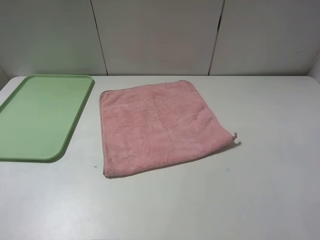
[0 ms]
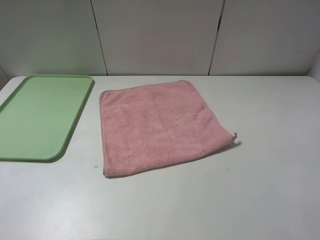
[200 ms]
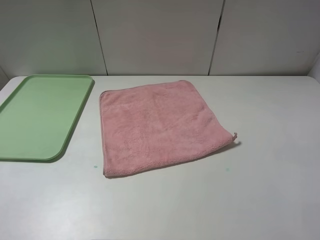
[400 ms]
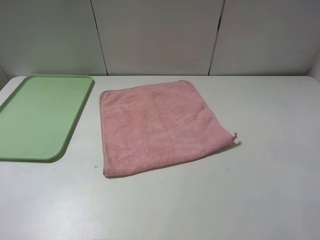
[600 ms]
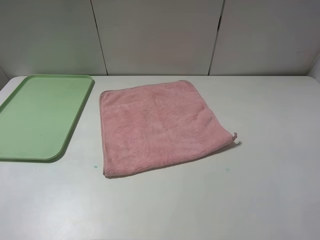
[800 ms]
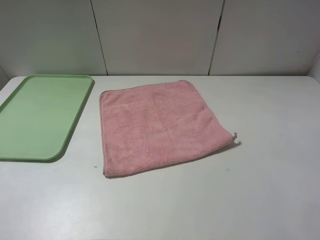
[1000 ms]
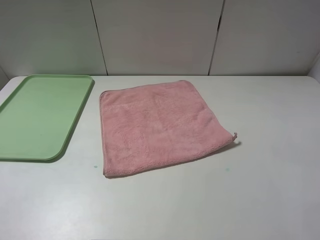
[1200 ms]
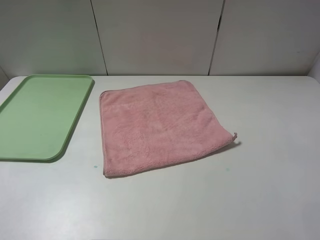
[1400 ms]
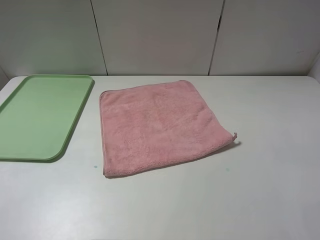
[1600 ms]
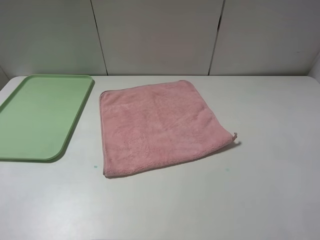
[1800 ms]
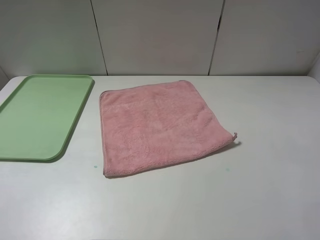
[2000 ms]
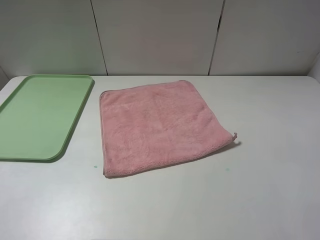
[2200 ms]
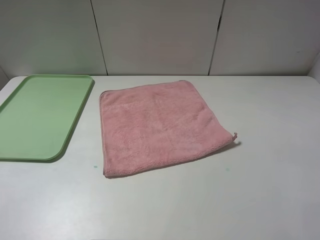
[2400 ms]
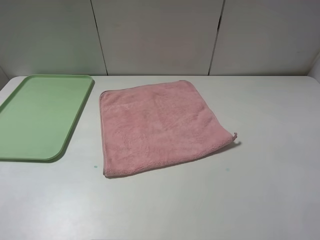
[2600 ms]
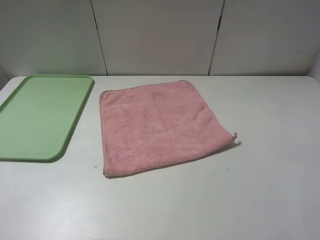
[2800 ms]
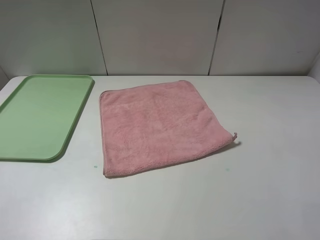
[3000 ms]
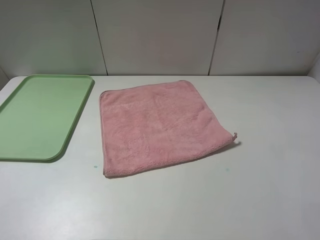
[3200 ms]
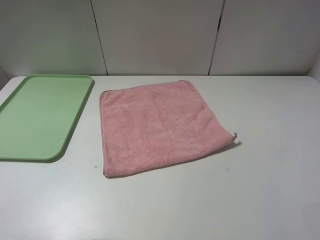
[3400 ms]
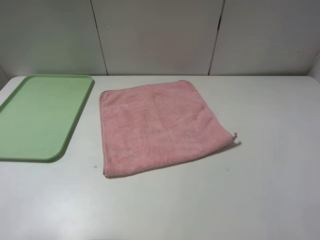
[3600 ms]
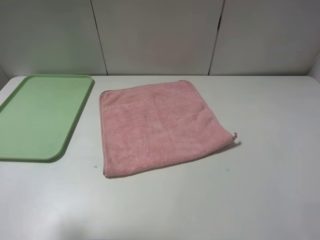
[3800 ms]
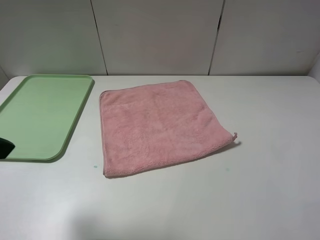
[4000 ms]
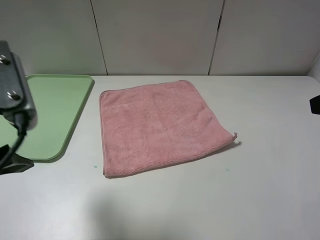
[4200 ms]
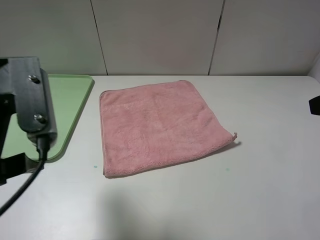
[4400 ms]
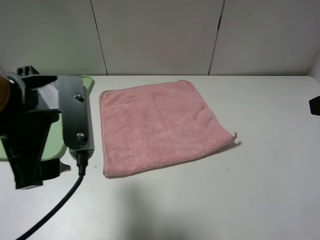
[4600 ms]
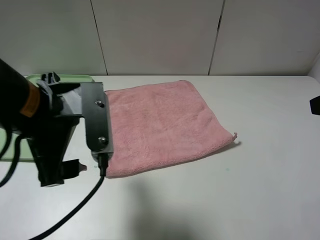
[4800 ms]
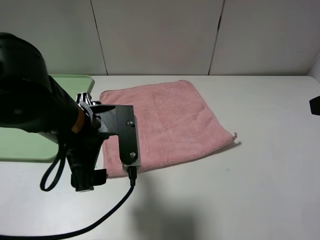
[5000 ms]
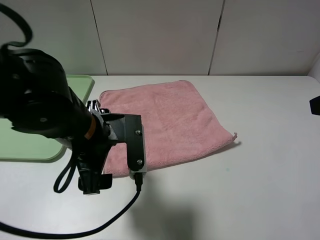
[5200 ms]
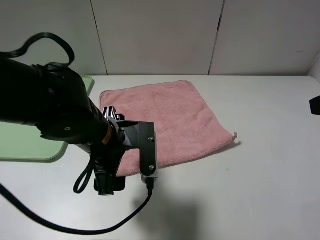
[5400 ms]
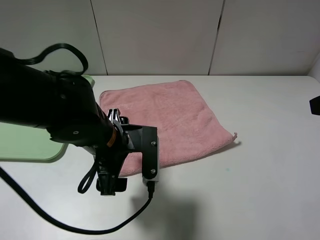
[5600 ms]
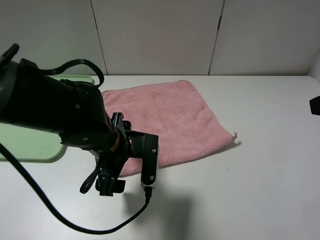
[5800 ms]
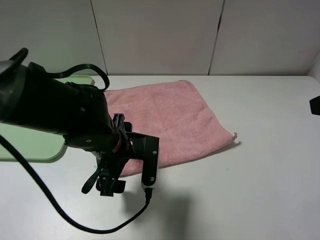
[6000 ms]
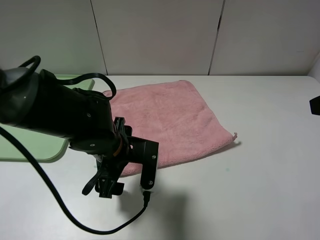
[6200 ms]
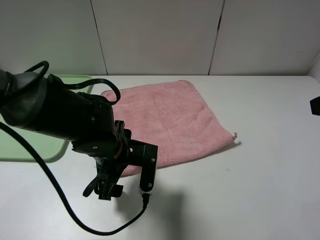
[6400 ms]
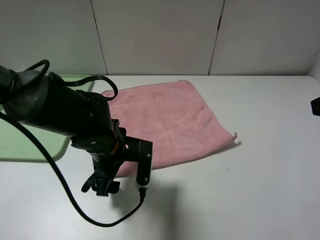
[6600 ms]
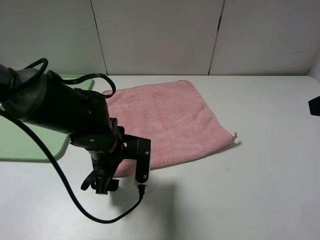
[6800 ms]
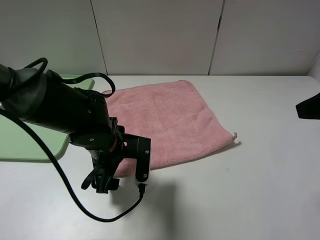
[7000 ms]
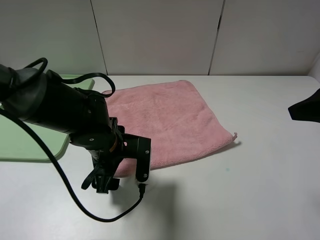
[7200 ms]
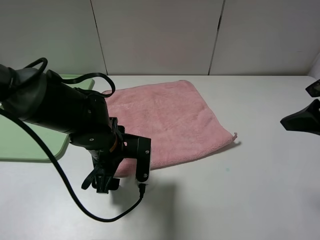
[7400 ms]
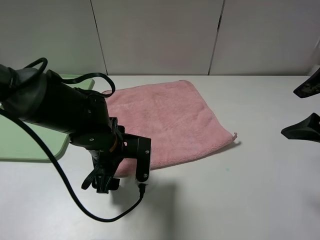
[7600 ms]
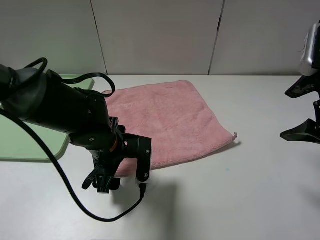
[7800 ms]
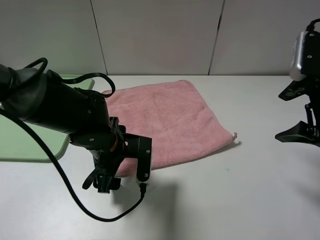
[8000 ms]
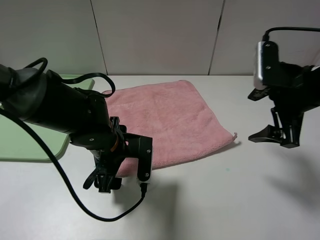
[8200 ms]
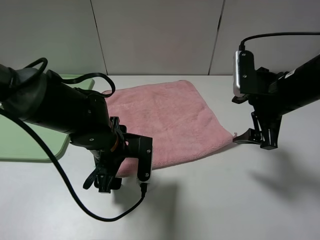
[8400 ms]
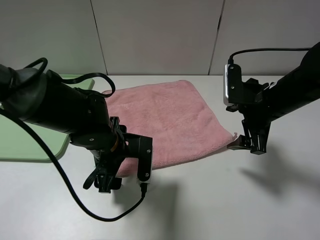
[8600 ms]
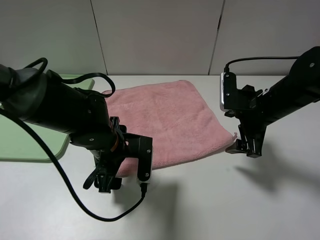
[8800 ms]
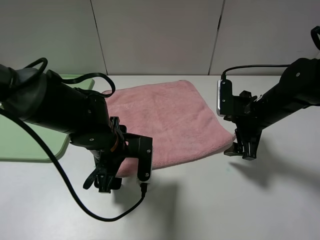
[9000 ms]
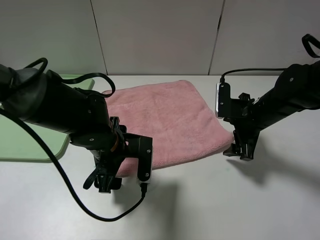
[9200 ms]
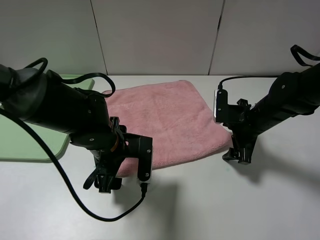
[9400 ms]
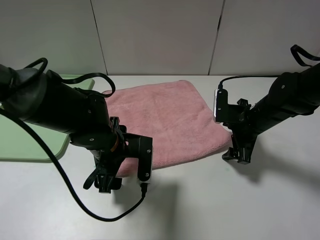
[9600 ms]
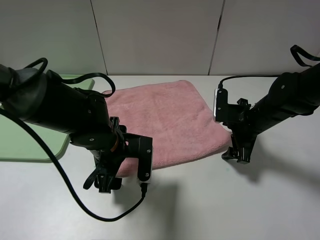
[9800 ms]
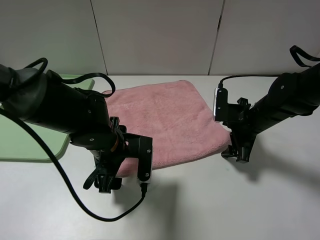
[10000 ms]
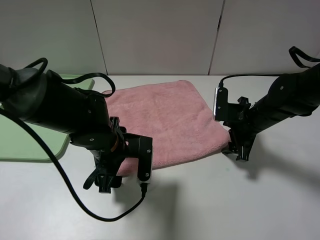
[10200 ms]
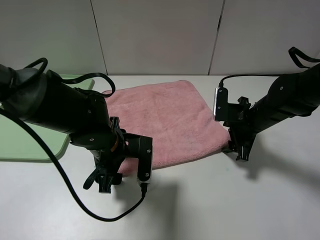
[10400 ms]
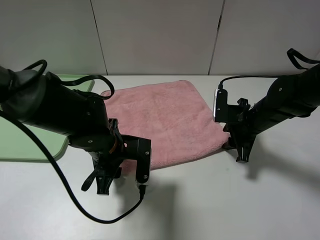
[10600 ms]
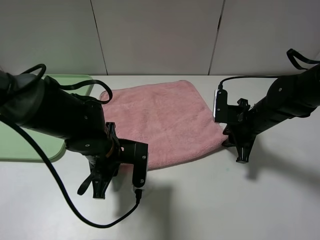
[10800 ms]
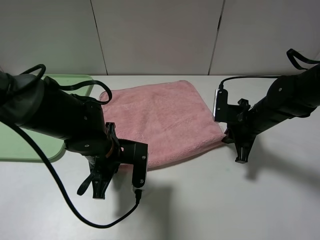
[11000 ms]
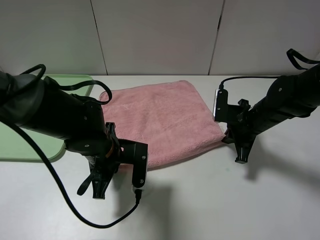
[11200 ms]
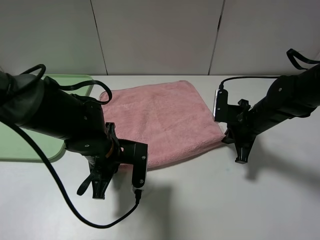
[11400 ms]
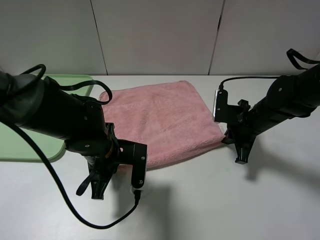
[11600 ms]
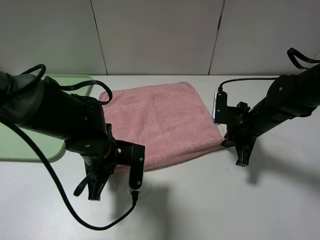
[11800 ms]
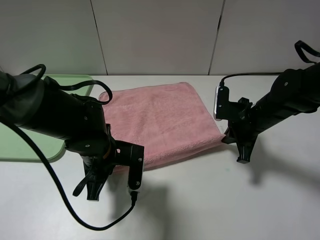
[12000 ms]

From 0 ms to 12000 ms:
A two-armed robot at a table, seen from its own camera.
From 0 ms to 1600 ms: Both grippers stay about where they are.
From 3000 ms to 4400 ms: The left gripper is displaced forward and to the right by some 20 cm. Meanwhile the right gripper is displaced forward by approximately 10 cm.
From 4400 ms to 6000 ms: The left gripper is displaced downward and to the right by roughly 20 cm.
From 6000 ms to 7600 ms: The right gripper shifts roughly 10 cm forward and downward.
From 7600 ms to 9000 ms: The right gripper goes some 15 cm downward, forward and to the left.
From 9000 ms to 10400 ms: The grippers stay close to where they were, moving slightly.
From 10400 ms to 12000 ms: The left gripper closes up. Meanwhile the right gripper closes its fingers.

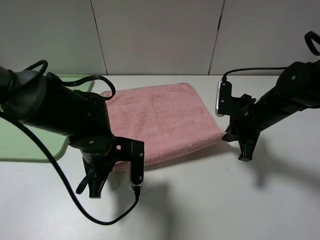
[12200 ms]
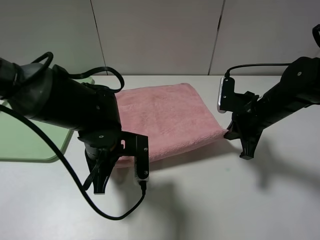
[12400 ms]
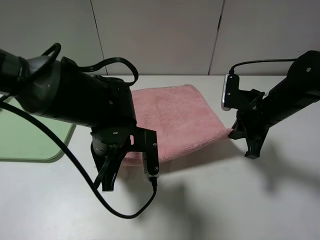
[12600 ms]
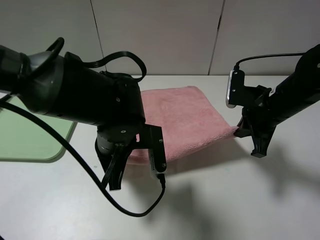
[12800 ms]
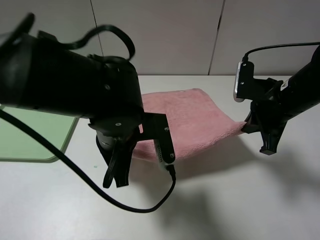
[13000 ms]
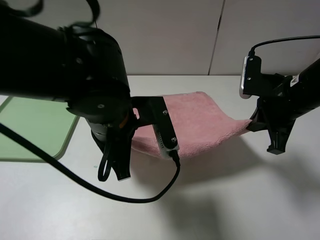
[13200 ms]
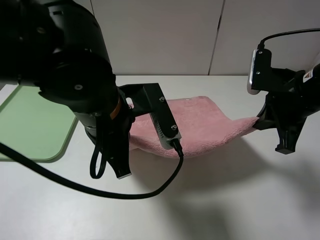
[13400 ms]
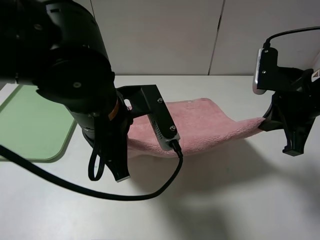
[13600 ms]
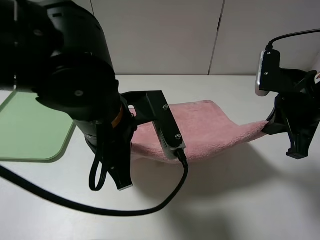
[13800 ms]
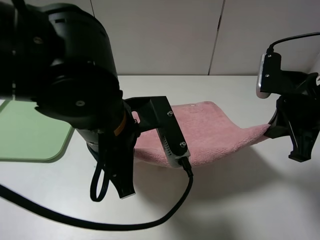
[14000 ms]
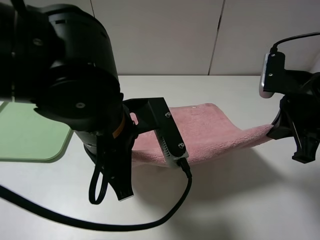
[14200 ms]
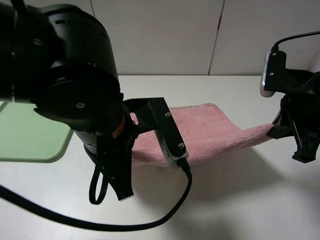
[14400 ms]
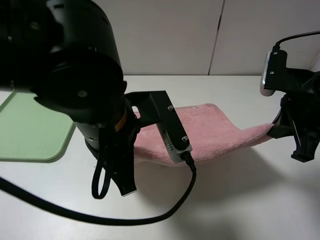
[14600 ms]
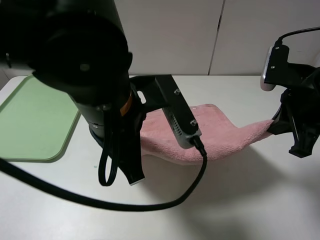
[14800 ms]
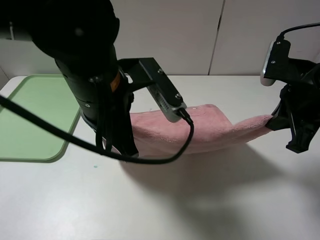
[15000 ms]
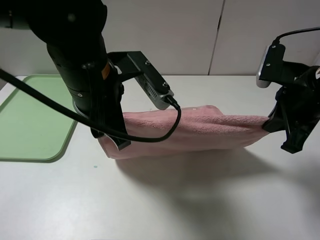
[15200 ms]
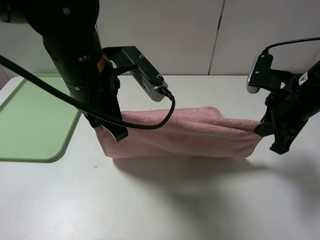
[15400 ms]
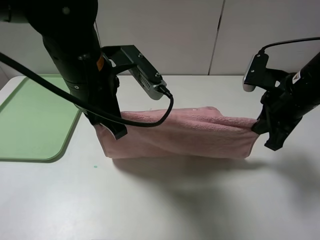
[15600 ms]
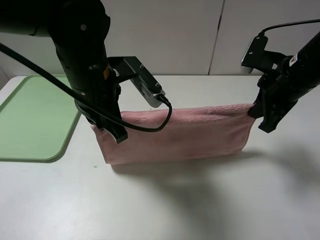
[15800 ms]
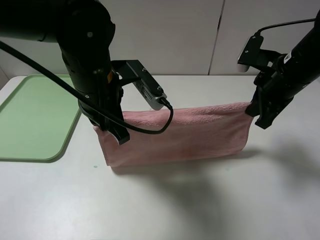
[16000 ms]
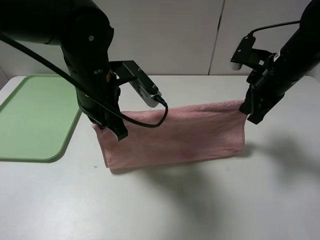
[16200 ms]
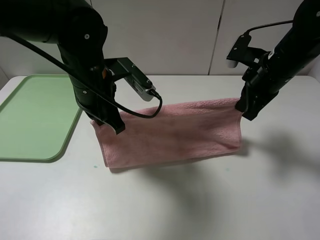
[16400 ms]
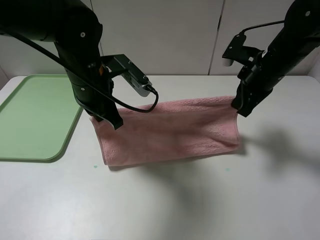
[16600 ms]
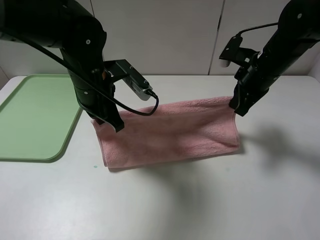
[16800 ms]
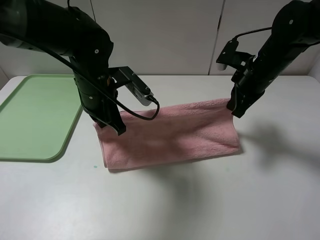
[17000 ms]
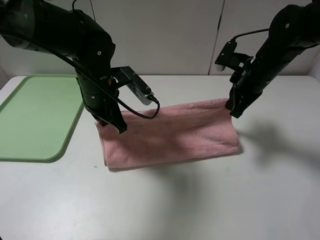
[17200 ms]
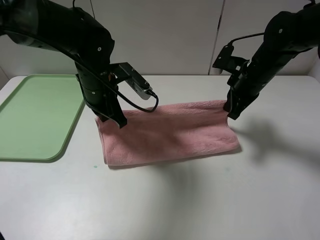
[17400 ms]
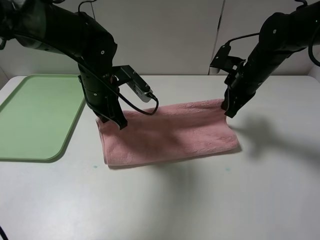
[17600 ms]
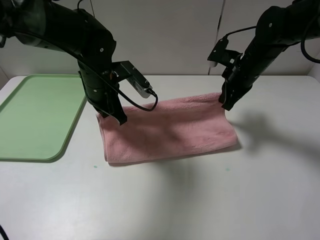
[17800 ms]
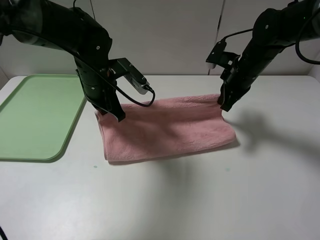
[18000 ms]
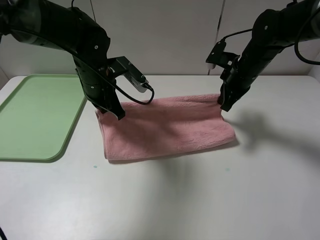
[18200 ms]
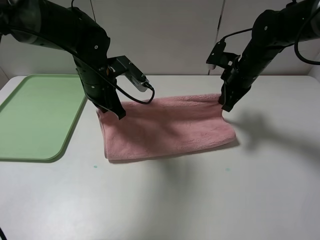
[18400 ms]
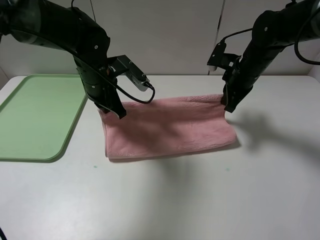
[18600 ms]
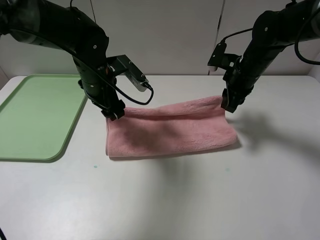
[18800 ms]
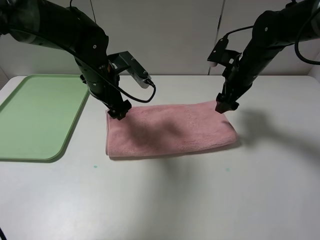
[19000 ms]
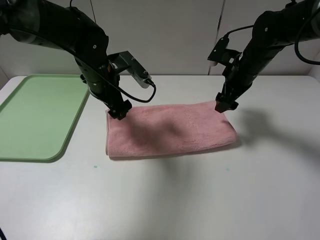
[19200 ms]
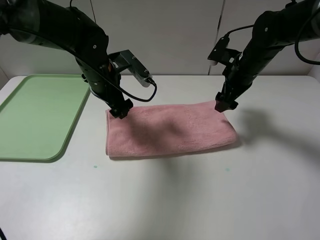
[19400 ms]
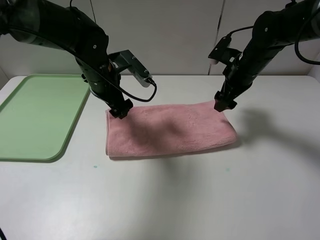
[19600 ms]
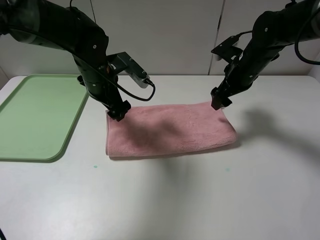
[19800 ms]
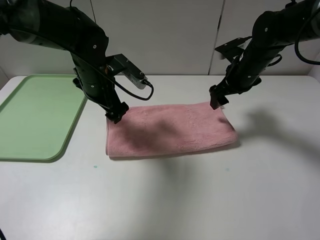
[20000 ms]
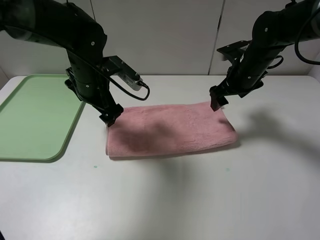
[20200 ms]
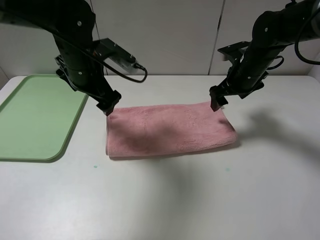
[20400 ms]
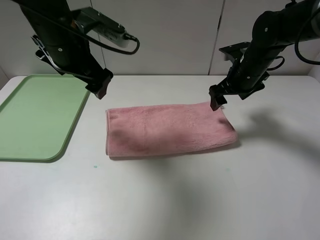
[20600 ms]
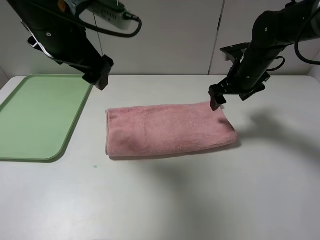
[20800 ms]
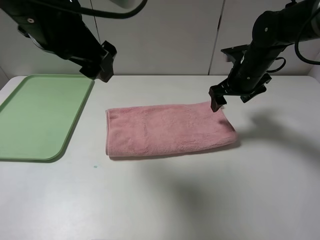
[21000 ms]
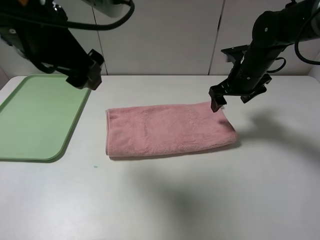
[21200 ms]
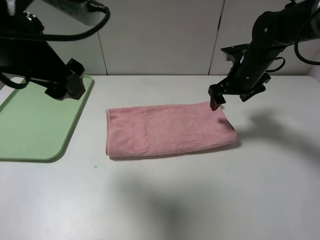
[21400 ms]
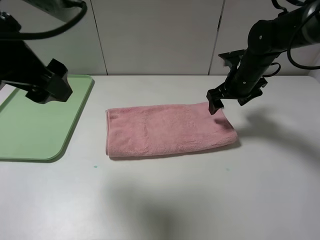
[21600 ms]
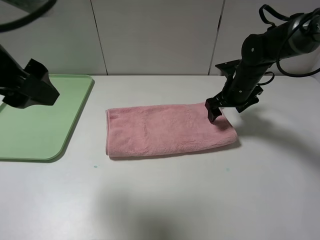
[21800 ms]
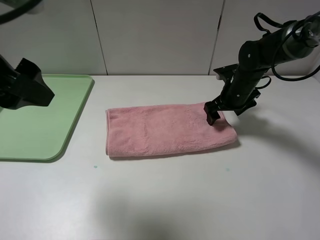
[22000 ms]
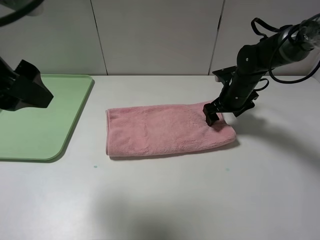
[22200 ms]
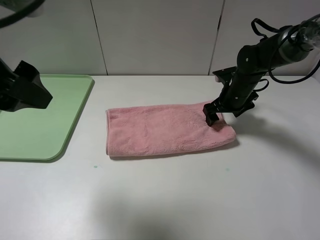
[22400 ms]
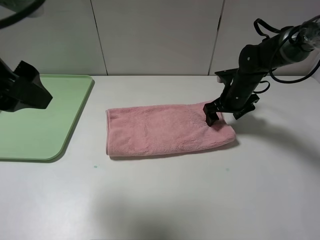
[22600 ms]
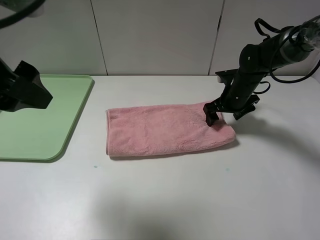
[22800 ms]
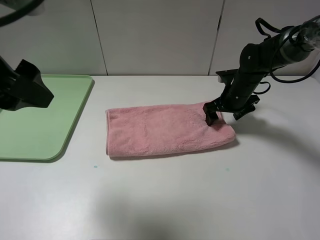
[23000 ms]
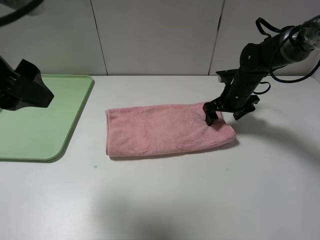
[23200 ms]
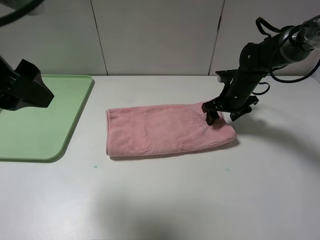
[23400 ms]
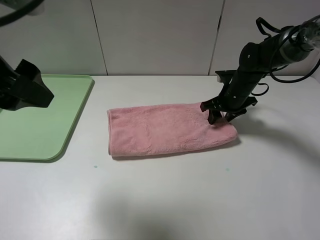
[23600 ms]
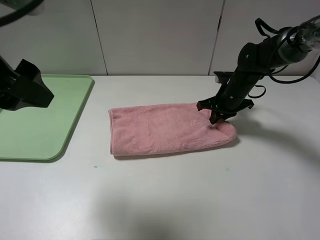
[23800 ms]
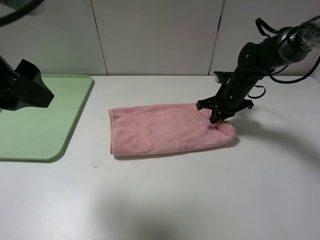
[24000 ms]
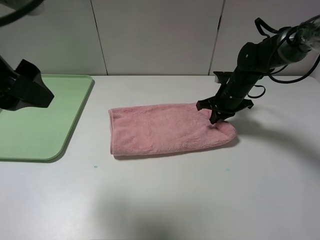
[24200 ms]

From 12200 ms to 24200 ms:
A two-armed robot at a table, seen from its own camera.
Step, from 12200 ms to 18800 ms: Fold the pink towel upwards.
From 12200 ms to 13800 ms: The right gripper travels upward and backward by approximately 10 cm, while the left gripper heads upward, covering approximately 10 cm.
From 13800 ms to 15200 ms: The left gripper is displaced forward by roughly 5 cm.
From 15200 ms to 16600 ms: Both grippers travel together forward, about 10 cm.
From 16600 ms to 18200 ms: Both grippers travel together forward, approximately 5 cm.
From 18200 ms to 19800 ms: The right gripper opens up. Meanwhile the left gripper opens up.
From 19800 ms to 21200 ms: The left gripper travels upward and backward by approximately 20 cm.
From 21200 ms to 22600 ms: The left gripper travels backward and to the left by approximately 10 cm. The right gripper shifts about 10 cm downward.
From 22600 ms to 24200 ms: The right gripper closes its fingers.
